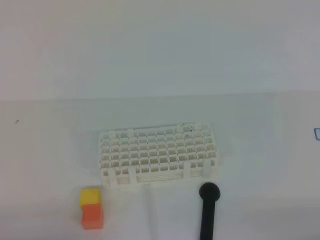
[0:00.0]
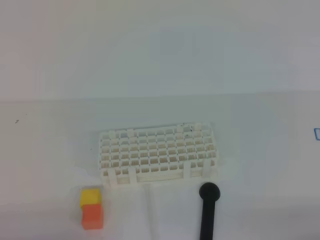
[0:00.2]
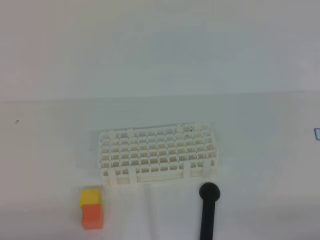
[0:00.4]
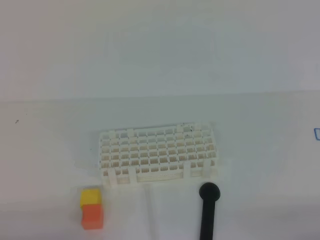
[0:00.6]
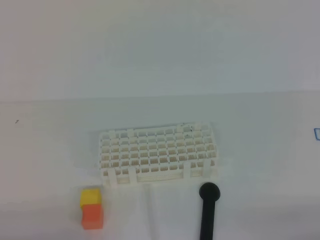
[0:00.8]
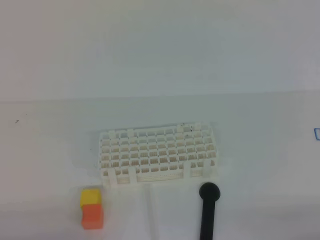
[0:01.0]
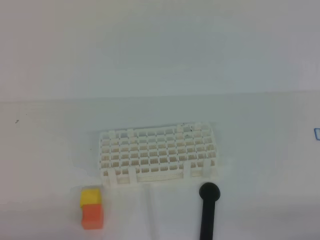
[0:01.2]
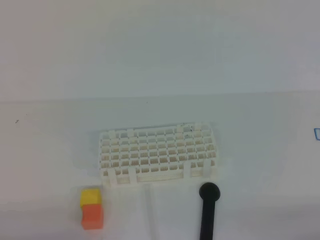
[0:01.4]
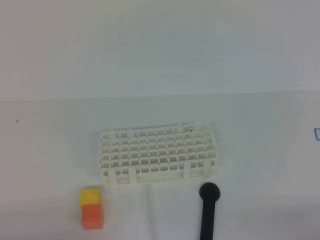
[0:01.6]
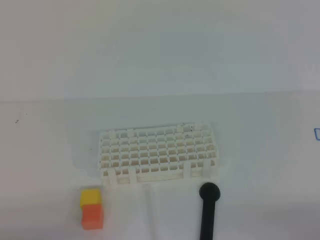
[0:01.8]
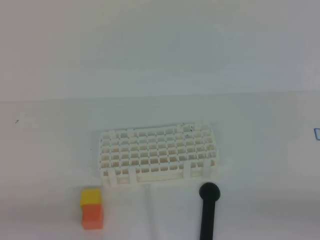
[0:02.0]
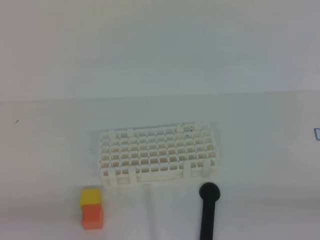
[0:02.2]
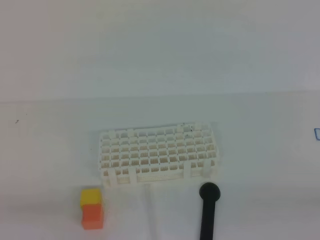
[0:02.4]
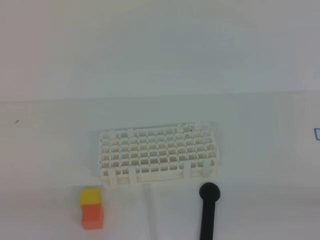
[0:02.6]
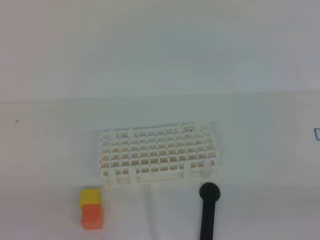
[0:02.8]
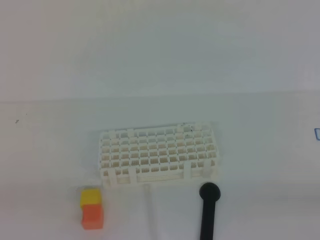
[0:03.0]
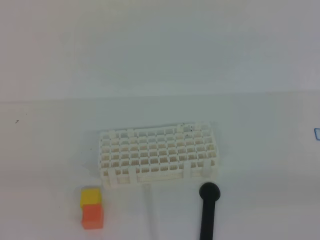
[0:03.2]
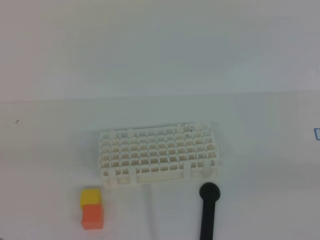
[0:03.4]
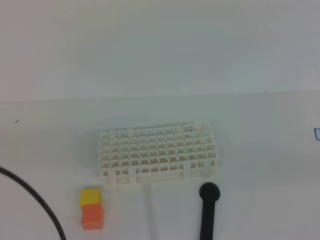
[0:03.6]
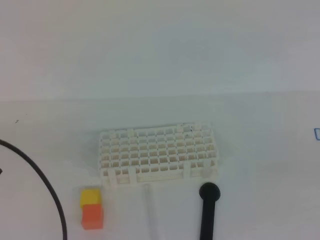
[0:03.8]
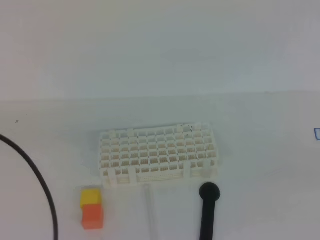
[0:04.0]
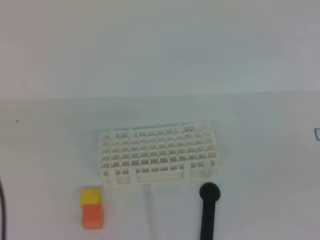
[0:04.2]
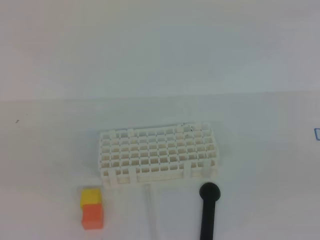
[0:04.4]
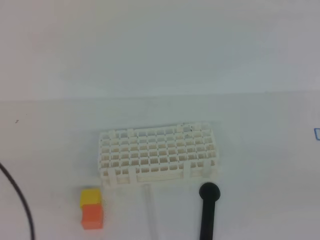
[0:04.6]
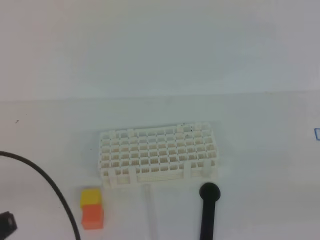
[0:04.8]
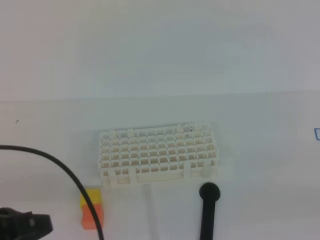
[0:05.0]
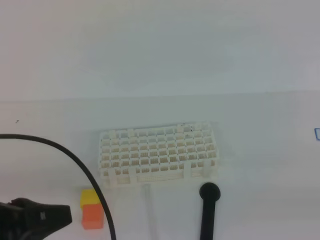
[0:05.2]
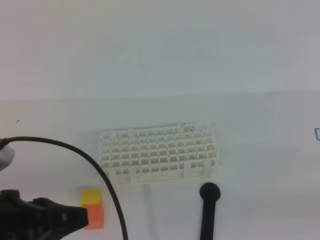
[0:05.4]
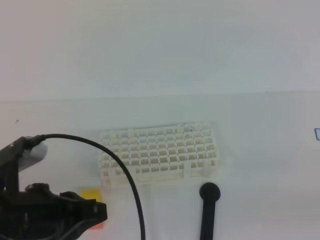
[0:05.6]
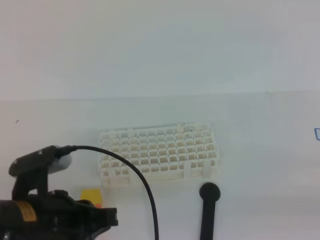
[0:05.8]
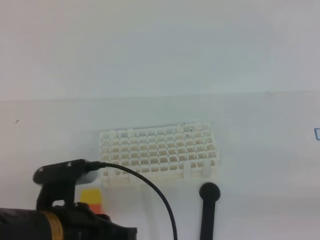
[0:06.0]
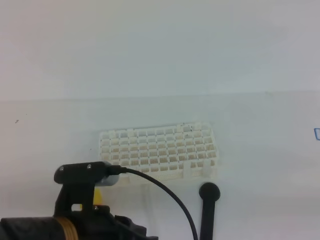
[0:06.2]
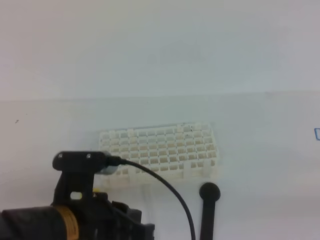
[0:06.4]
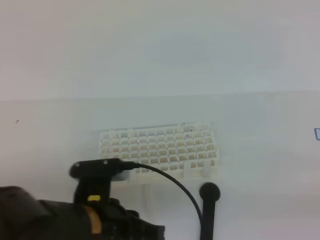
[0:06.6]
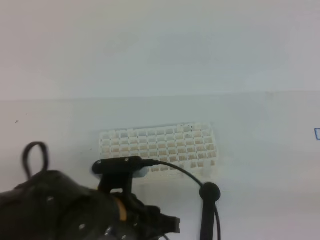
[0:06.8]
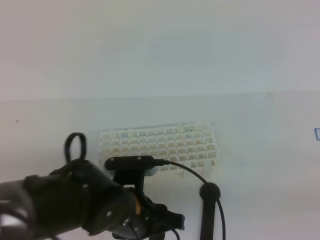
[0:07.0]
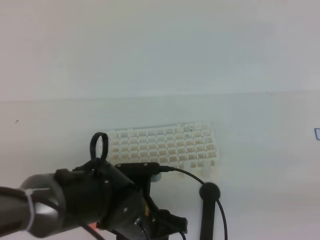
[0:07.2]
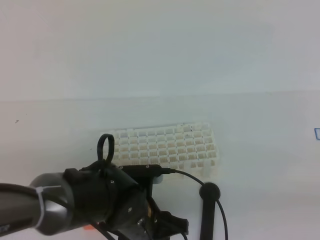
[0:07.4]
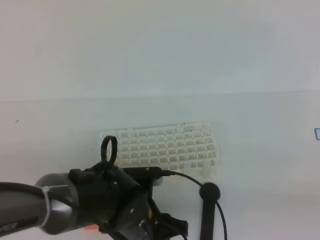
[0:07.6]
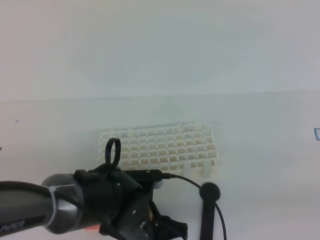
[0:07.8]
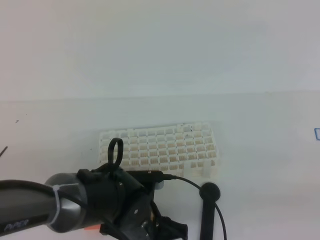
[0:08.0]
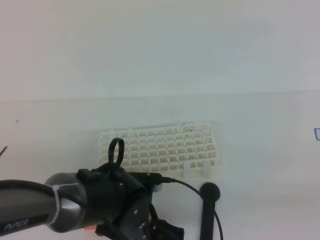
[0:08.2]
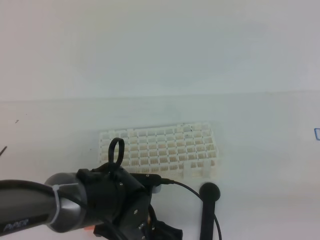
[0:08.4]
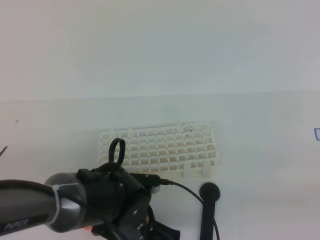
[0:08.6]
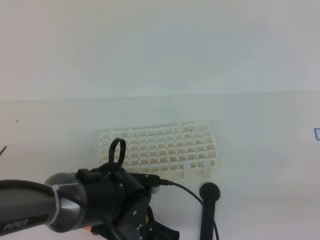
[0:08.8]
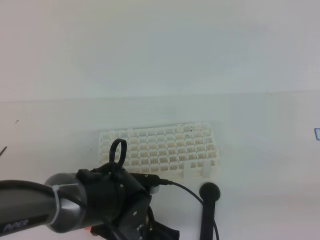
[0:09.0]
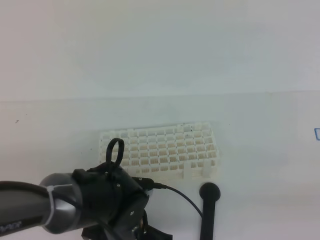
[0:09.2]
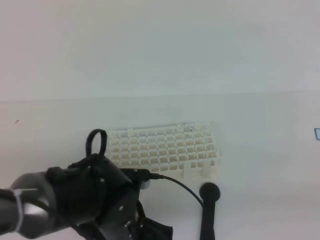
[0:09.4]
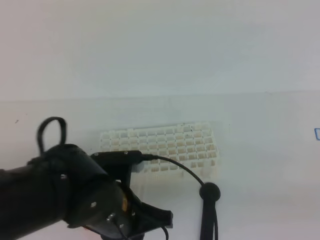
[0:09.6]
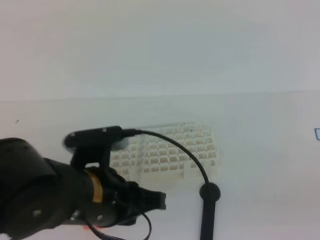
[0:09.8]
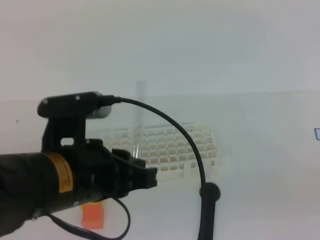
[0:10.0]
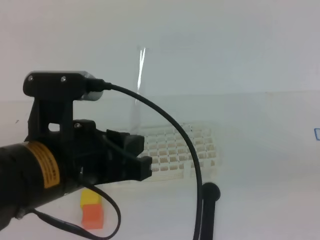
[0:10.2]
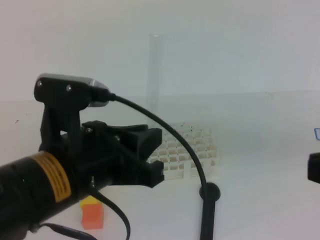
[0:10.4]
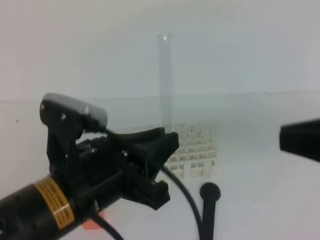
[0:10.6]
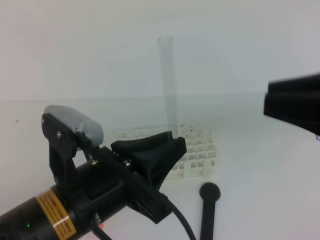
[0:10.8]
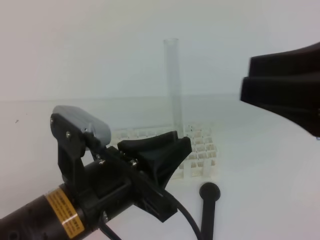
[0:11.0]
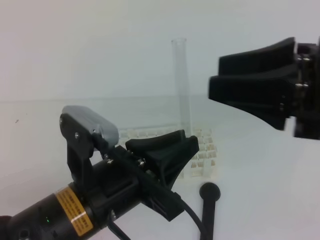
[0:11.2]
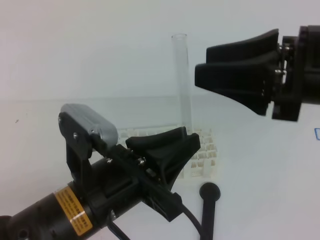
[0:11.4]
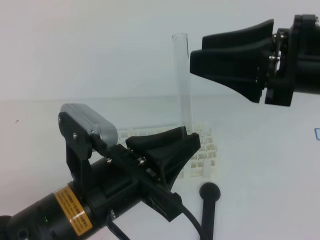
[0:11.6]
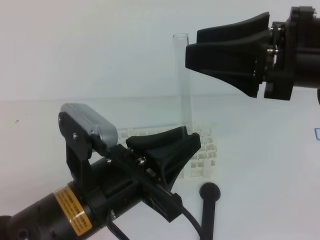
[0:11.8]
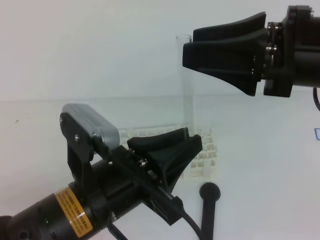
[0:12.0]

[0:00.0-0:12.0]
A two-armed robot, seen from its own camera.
0:00.0 to 0:01.6: The two grippers keep their place.
0:04.4 to 0:06.0: The left gripper goes about 20 cm to the right and downward.
0:06.0 to 0:07.6: The left gripper is displaced downward, to the right and forward by some 15 cm, and opens up.
0:07.6 to 0:09.0: The left gripper closes.
0:09.0 to 0:10.4: The left gripper travels upward by approximately 20 cm. Meanwhile the right gripper heads upward, to the left and forward, covering some 10 cm.
0:10.4 to 0:12.0: The right gripper goes roughly 15 cm forward and to the left, and opens its fingers.

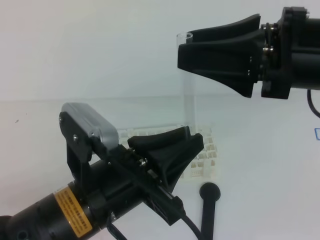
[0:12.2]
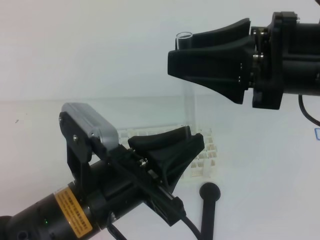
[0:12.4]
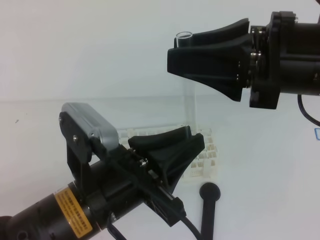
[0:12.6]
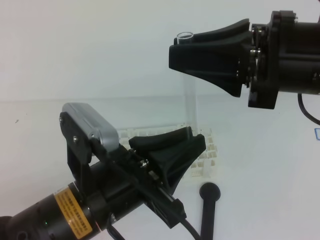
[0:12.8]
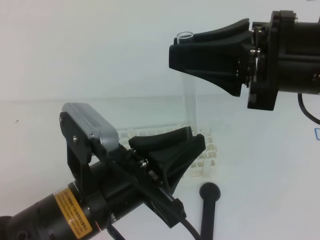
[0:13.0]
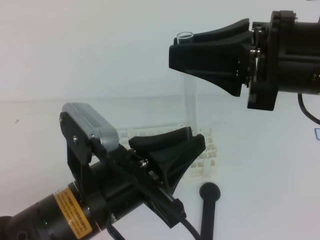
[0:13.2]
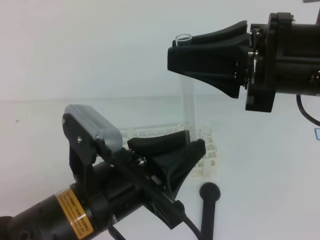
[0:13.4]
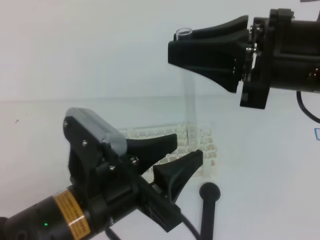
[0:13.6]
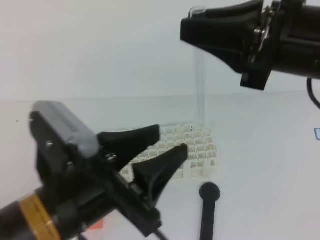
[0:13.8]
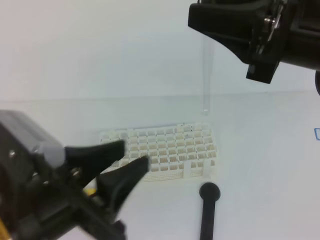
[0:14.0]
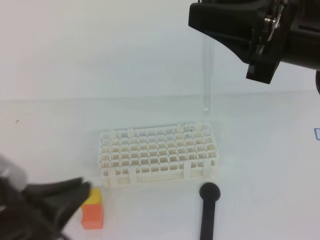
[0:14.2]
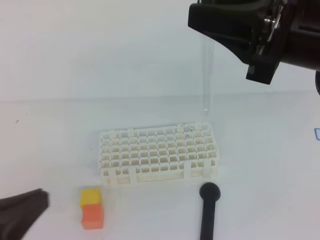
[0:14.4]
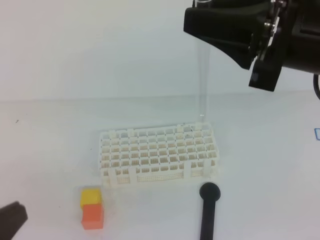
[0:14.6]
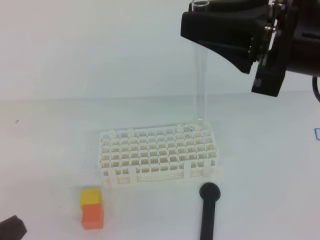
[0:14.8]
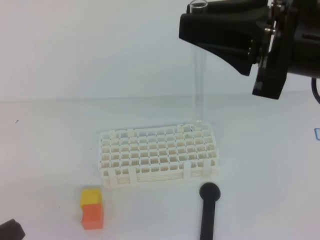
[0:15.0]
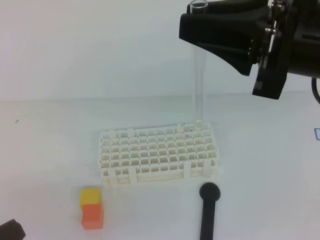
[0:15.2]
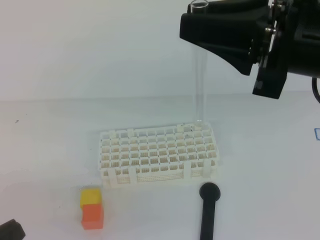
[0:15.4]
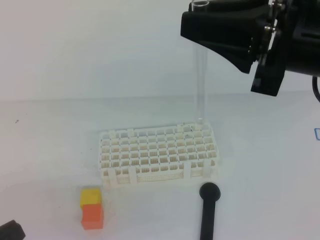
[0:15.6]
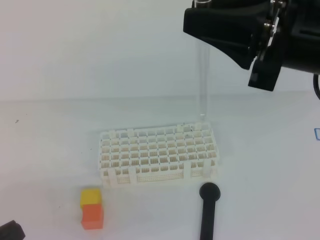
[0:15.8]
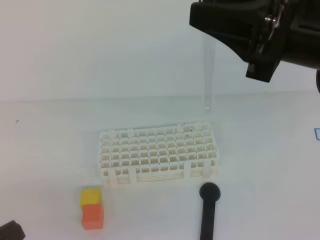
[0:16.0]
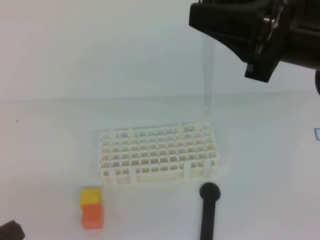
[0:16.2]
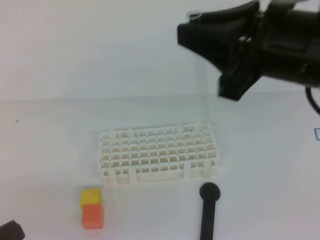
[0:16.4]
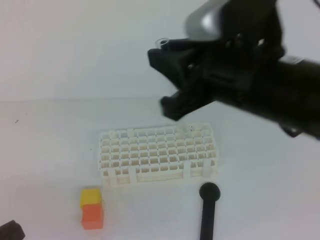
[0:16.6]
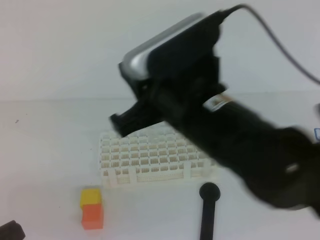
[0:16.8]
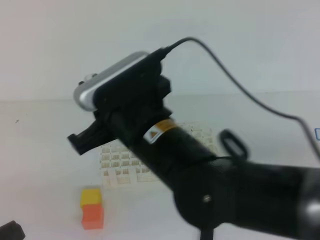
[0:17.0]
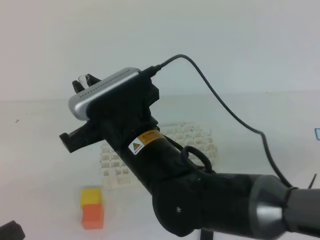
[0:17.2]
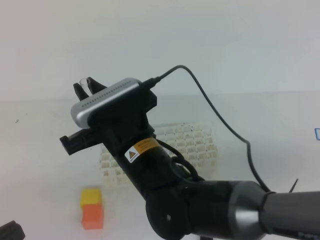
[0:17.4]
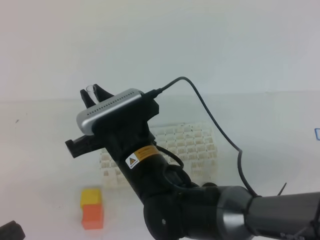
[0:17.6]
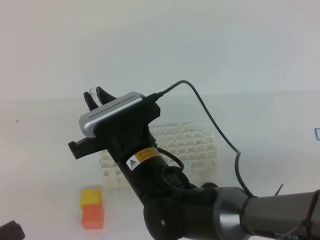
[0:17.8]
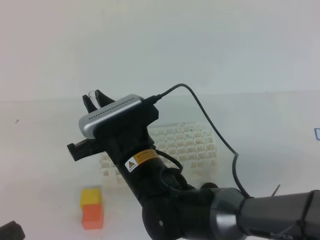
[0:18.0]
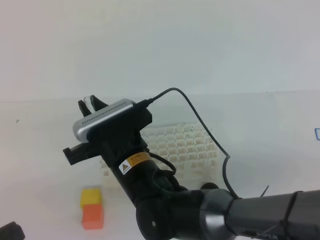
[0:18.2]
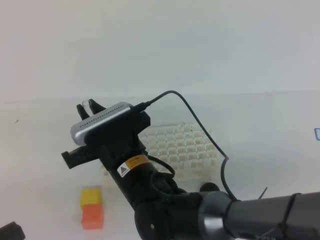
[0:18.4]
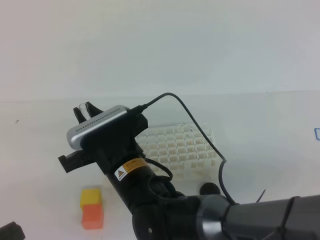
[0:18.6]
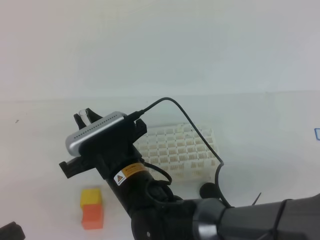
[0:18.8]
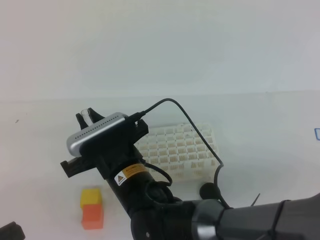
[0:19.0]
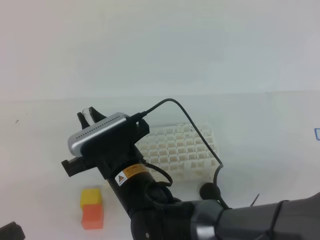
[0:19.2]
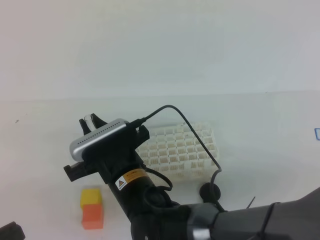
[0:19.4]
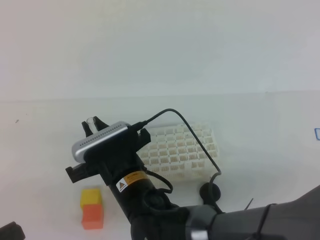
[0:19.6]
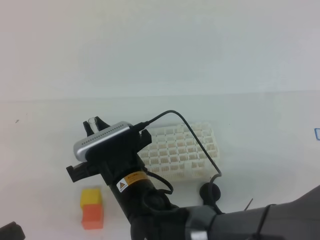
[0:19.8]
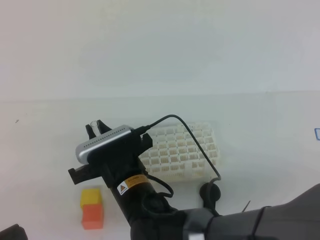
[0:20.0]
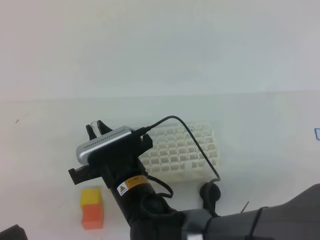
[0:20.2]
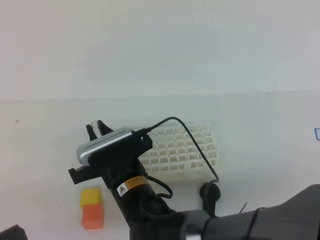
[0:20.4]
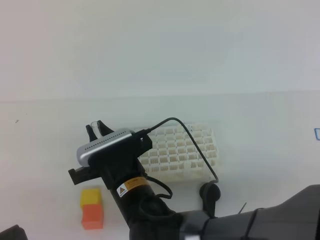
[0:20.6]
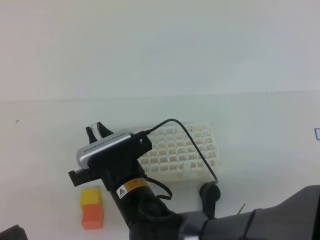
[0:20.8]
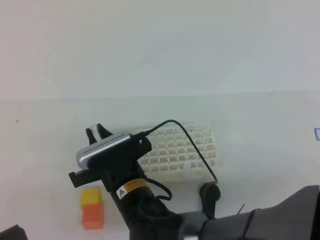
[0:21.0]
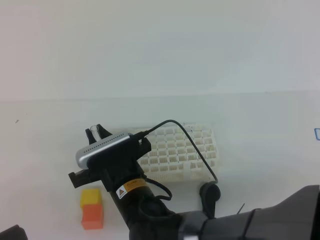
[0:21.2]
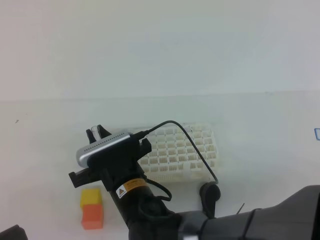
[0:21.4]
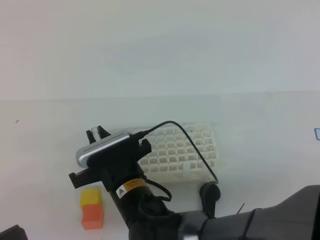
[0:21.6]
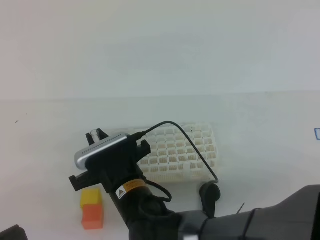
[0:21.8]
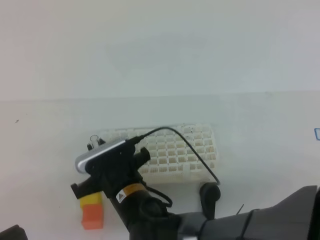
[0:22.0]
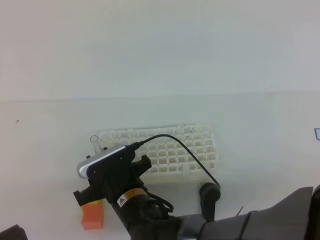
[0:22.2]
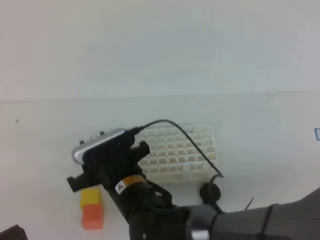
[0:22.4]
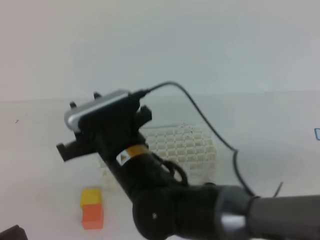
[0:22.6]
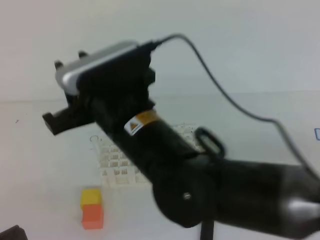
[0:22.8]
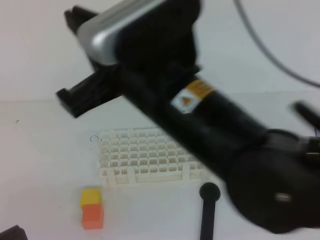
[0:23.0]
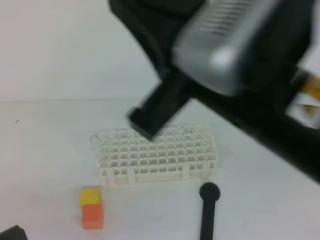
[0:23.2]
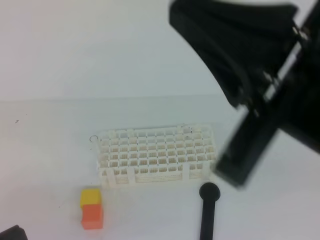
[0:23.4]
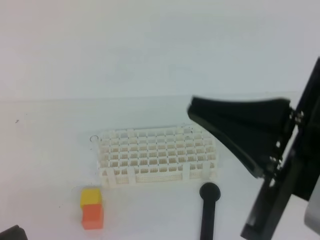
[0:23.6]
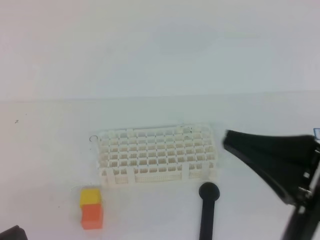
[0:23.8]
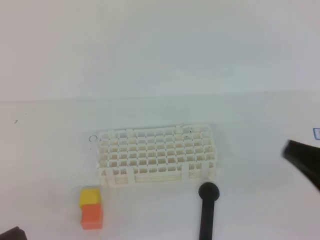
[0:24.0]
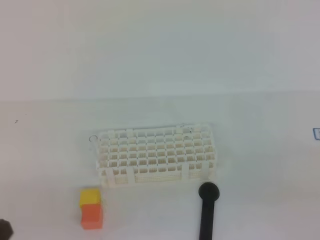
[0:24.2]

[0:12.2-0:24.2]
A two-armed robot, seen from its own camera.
0:12.2 to 0:13.8: The left gripper opens up; the right gripper closes up.
0:13.8 to 0:15.2: The left gripper is displaced to the left and backward by some 15 cm, and closes up.
0:15.2 to 0:16.6: The right gripper is displaced to the left by about 5 cm.
0:16.6 to 0:18.2: The right gripper shifts some 20 cm downward and to the left.
0:18.2 to 0:19.8: The grippers stay close to where they were, moving slightly.
0:19.8 to 0:21.2: The grippers stay close to where they were, moving slightly.
0:21.2 to 0:22.6: The right gripper shifts approximately 10 cm upward, and opens its fingers.
0:22.6 to 0:24.2: The right gripper goes about 35 cm to the right and backward, and closes up.
